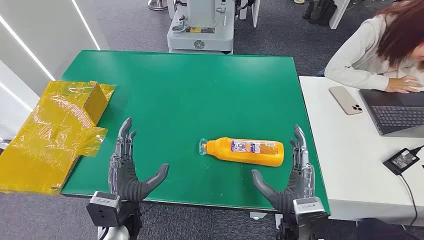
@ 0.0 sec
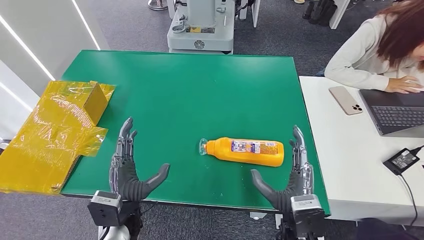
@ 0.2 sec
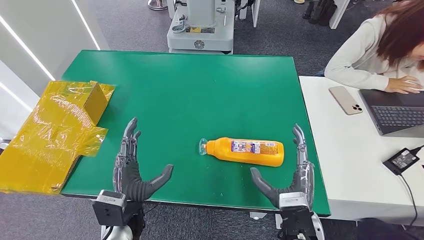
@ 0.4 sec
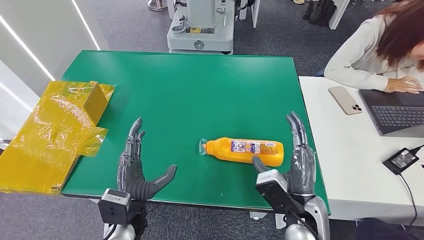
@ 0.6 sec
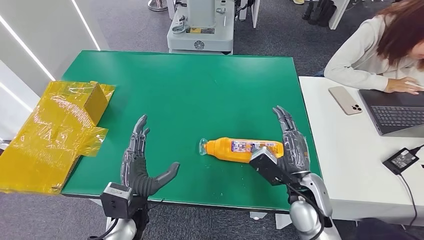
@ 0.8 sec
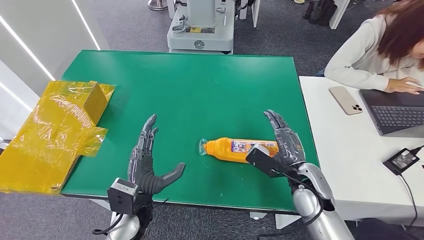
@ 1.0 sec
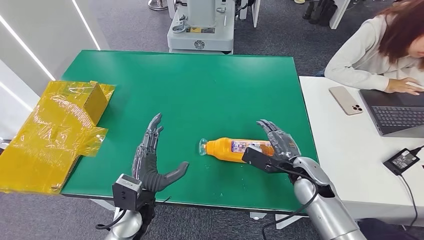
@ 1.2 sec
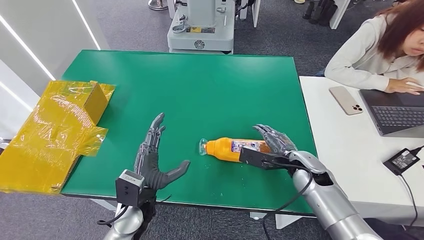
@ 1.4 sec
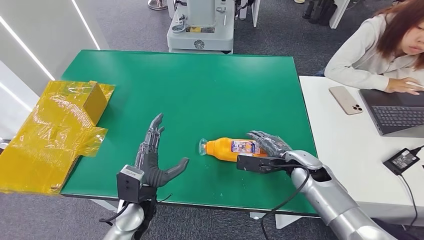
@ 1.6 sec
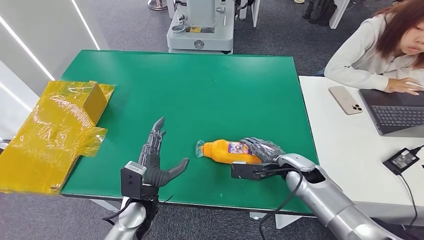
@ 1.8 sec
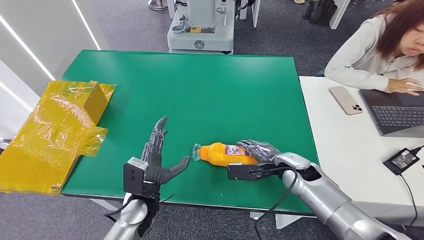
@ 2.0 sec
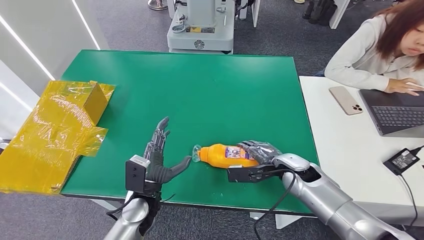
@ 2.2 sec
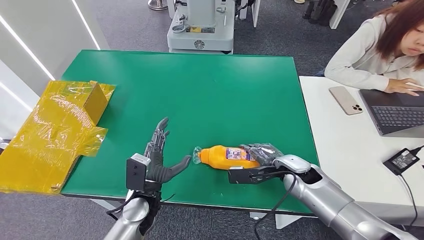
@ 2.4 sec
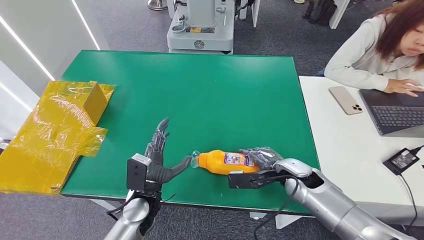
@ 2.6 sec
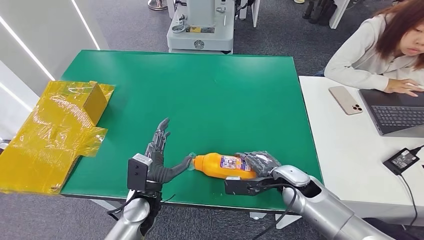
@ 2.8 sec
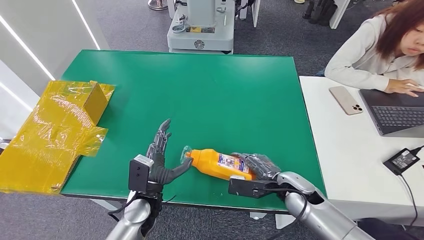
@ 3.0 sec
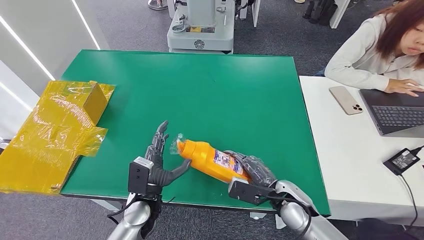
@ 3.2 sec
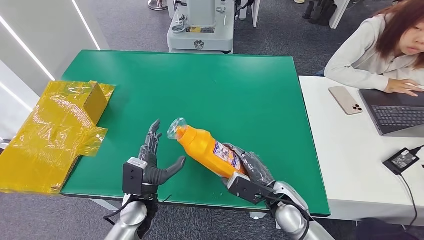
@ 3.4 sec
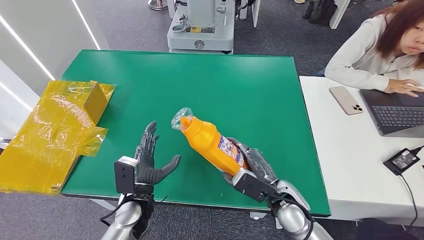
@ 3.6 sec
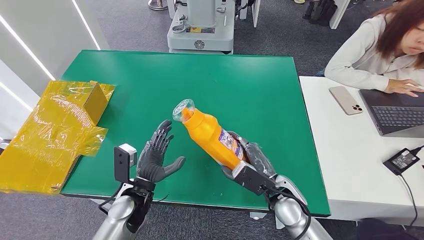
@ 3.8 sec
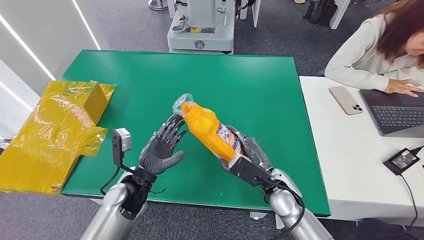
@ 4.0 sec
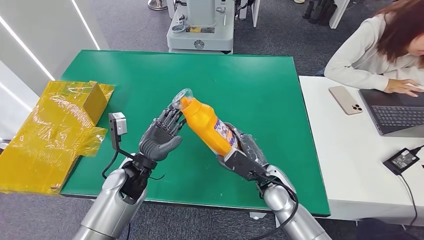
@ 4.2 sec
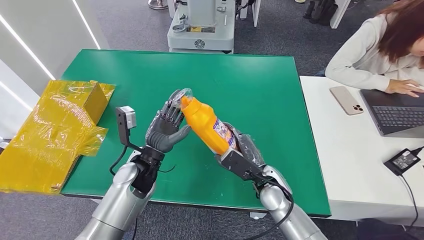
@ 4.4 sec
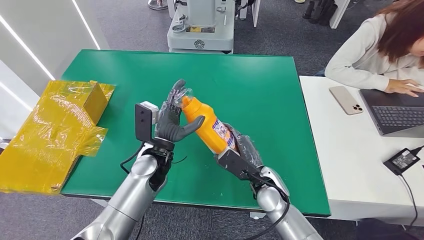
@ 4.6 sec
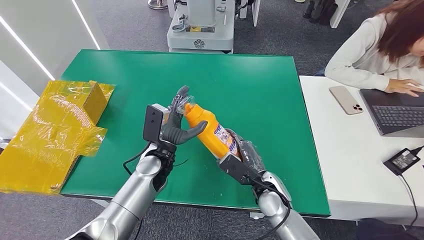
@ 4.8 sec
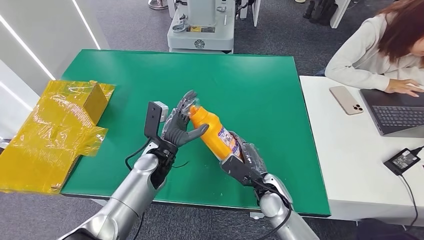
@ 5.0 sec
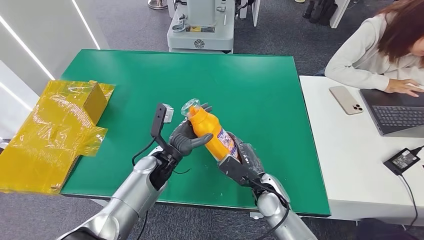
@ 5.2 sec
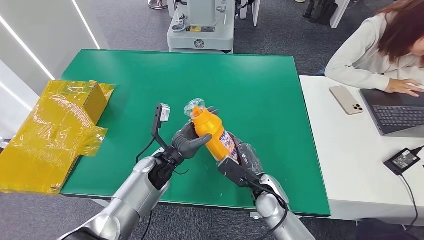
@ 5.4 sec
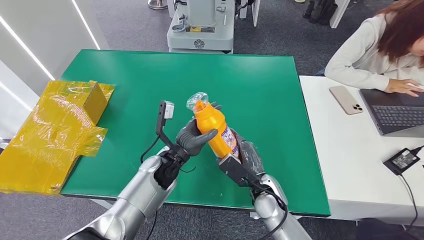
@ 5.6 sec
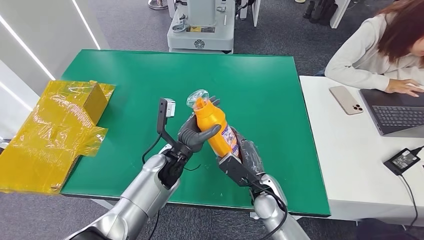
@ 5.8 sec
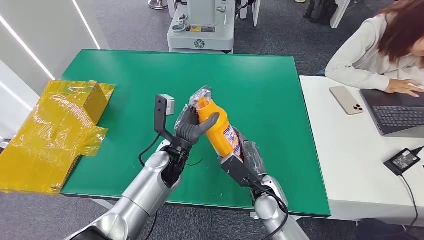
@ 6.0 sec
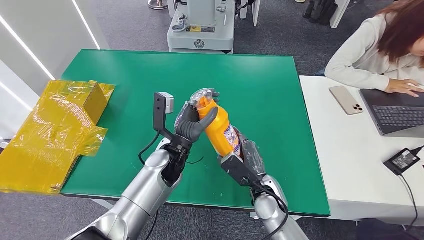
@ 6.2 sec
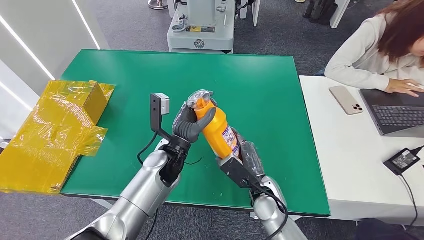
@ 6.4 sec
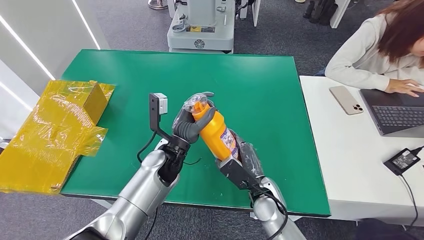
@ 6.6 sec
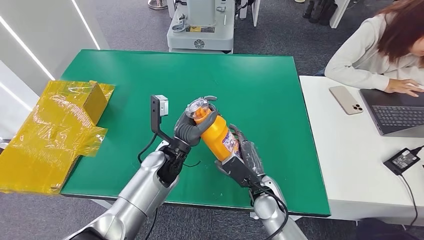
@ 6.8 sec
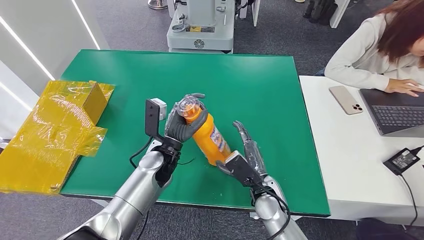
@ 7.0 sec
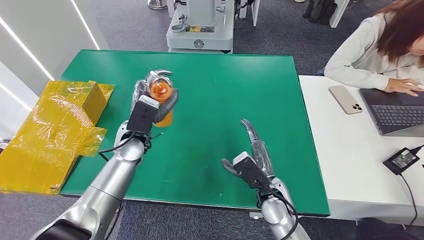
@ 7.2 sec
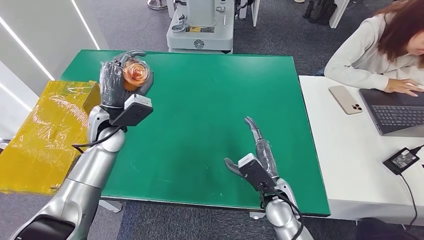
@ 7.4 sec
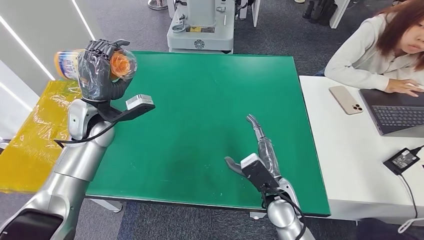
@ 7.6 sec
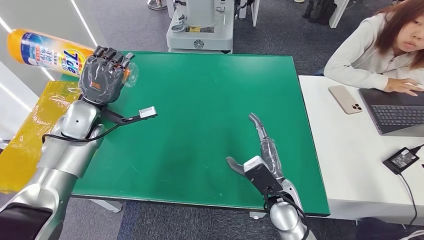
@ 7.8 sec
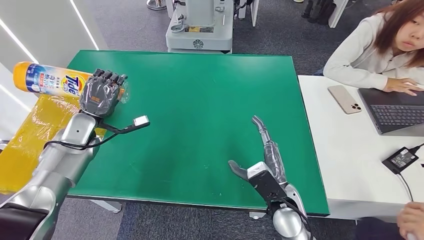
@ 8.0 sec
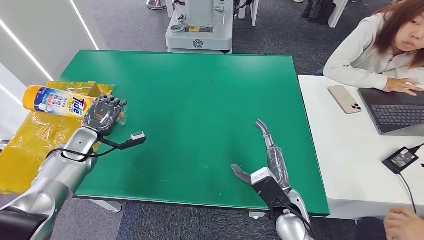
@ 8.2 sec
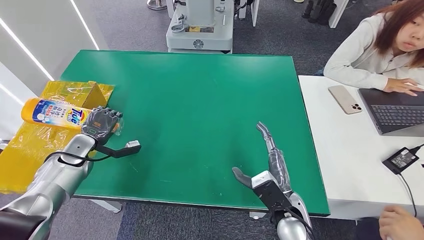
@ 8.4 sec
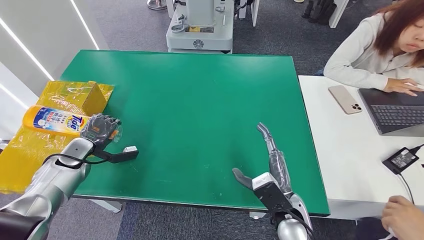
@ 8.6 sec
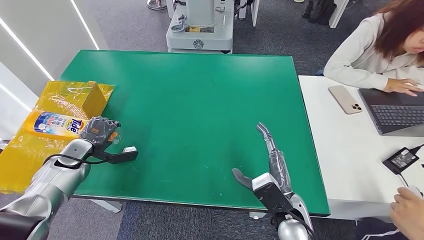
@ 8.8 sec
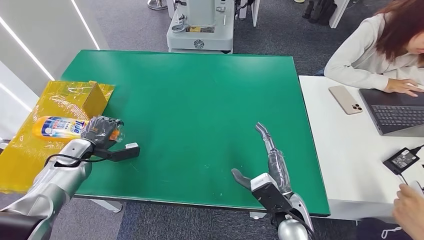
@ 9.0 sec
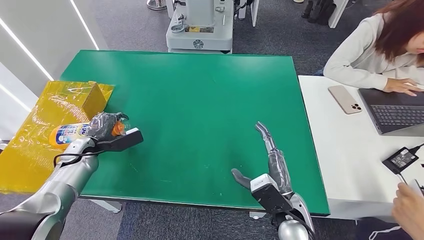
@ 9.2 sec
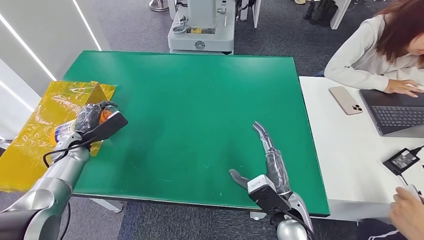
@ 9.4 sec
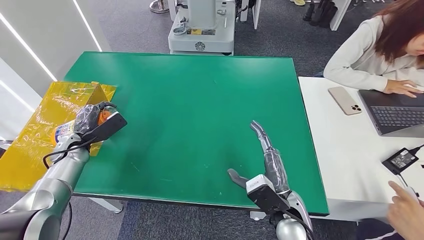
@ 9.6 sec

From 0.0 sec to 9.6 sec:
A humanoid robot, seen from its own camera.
Step, from 0.0 sec to 4.4 sec: Pick up the bottle from the table.
From 1.6 sec to 3.2 sec: The right hand shifts some 10 cm backward.
From 3.2 sec to 4.8 sec: The left hand is displaced forward and upward by approximately 10 cm. The right hand is displaced to the left by about 5 cm.

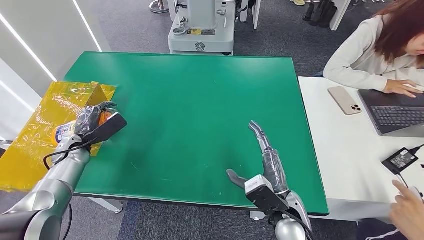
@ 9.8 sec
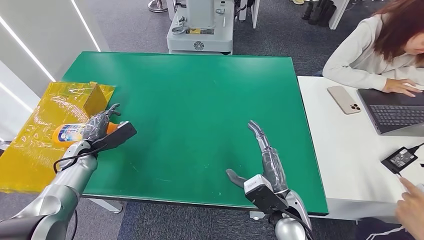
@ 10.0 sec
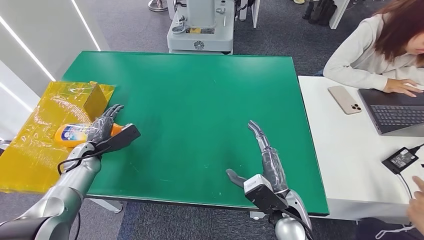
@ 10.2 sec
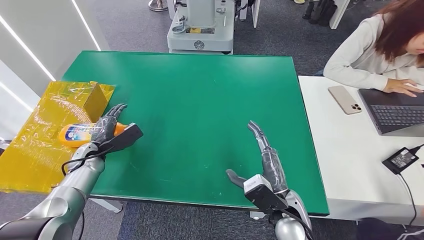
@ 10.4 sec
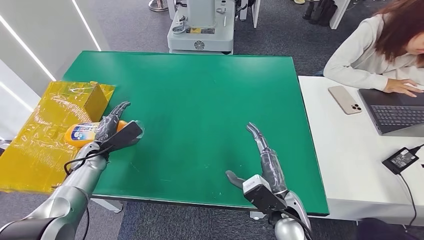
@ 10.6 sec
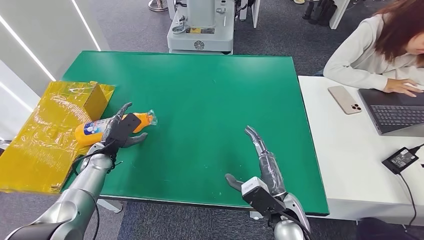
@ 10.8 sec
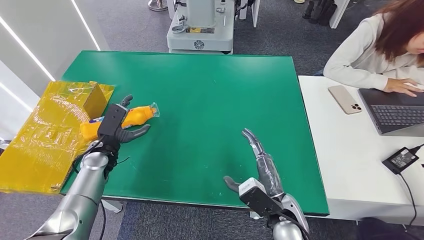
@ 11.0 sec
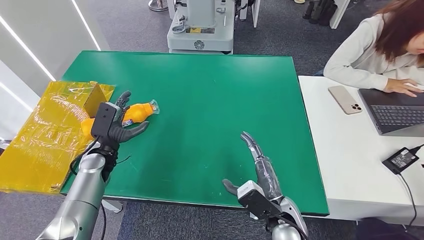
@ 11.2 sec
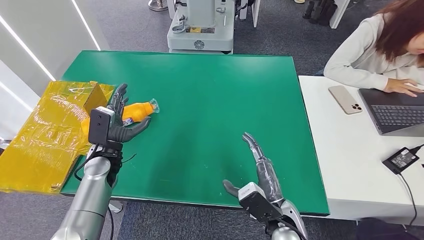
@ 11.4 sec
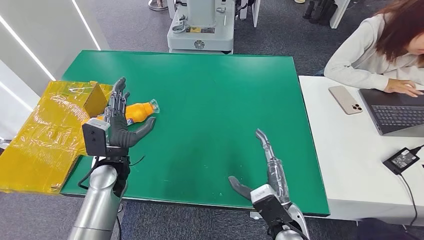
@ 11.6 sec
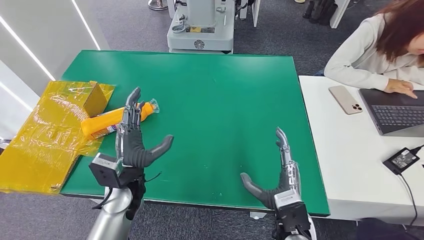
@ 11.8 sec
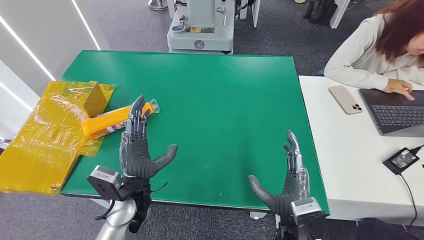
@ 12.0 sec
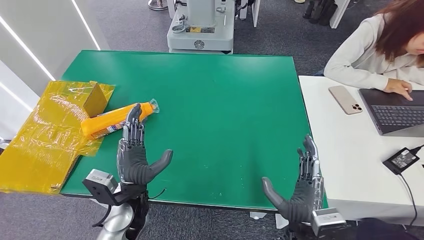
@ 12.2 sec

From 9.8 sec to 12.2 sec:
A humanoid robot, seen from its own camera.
Step, from 9.8 sec to 12.2 sec: Turn the bottle to the front side.
From 9.8 sec to 11.0 sec: The left hand moves to the right, about 10 cm.
From 11.0 sec to 12.2 sec: The right hand goes roughly 5 cm backward. The left hand shifts about 20 cm to the right and backward.
